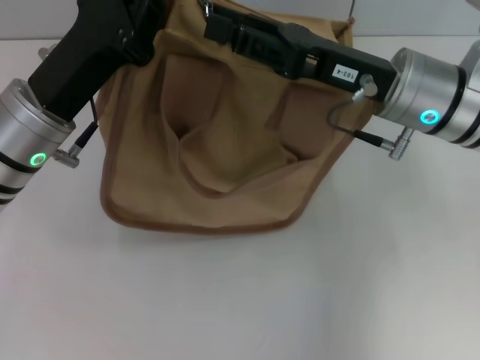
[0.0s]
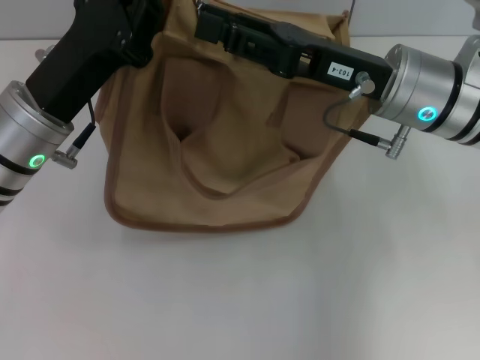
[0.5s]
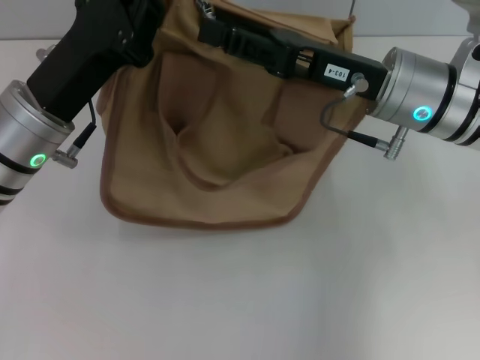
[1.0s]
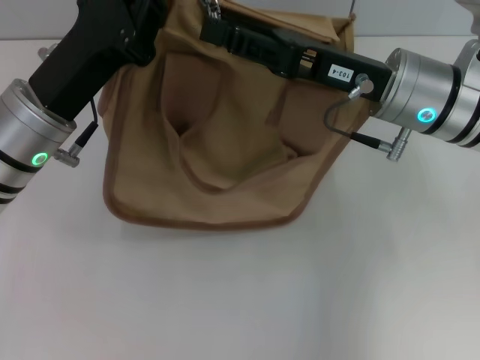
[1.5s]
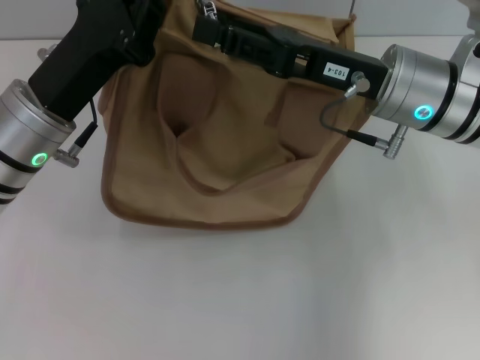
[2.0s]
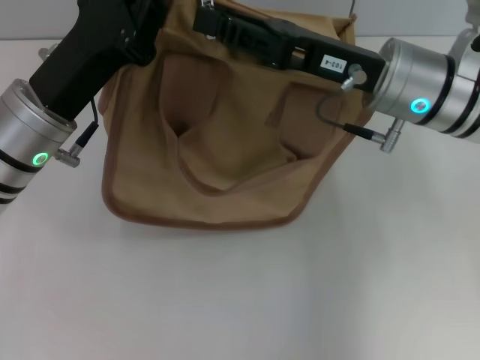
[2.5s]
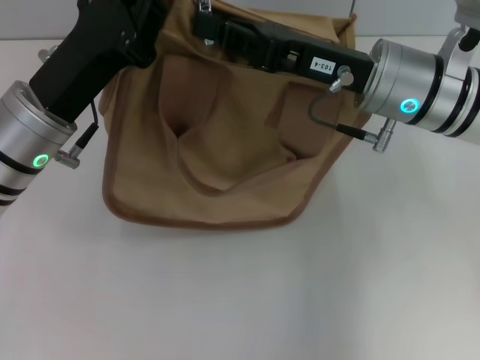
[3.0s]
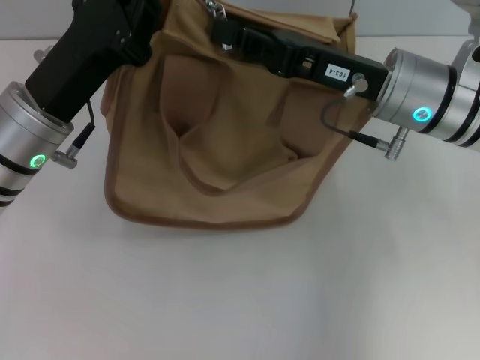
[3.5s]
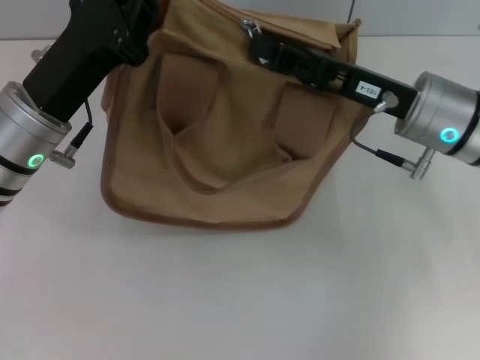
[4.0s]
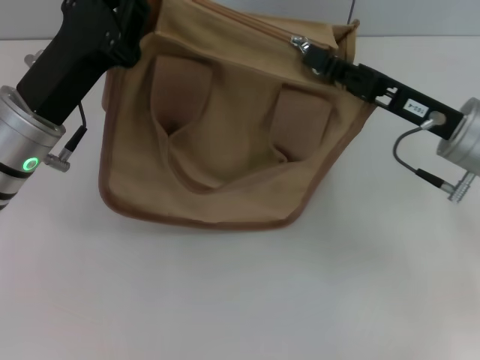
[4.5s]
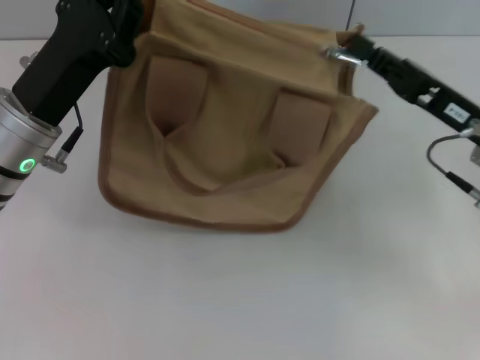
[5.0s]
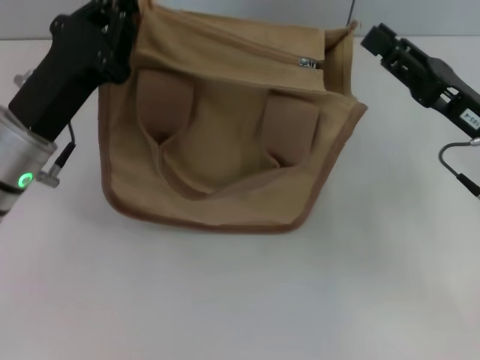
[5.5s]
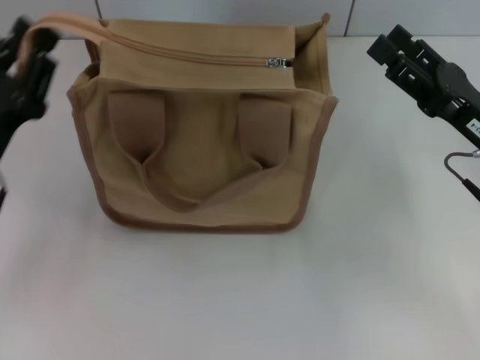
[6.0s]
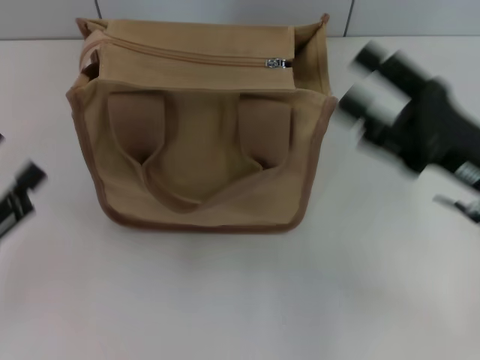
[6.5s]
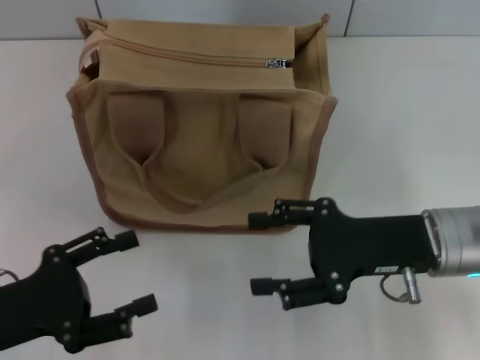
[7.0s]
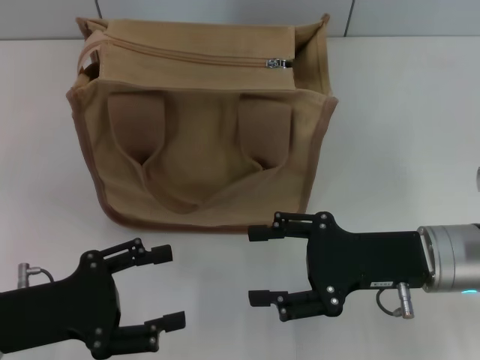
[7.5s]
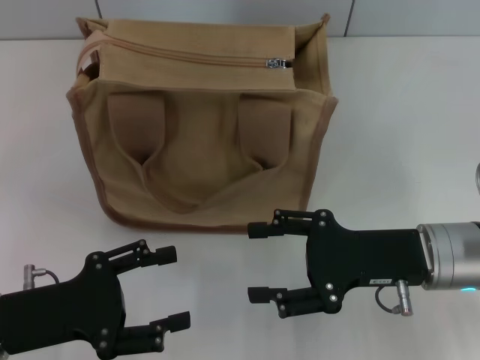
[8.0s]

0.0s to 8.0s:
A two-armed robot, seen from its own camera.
Step, 0.0s to 5.0s: Pull up the zipper with your right hand.
Step, 5.5s to 6.0s: Grab the zipper with your left hand.
0.0s to 2.0s: The two grippers keep their place.
2.0s to 4.0s: The right gripper closes up.
4.0s to 6.0s: The right gripper moves to the right and backward, approximately 10 cm, and opens up. Meanwhile the left gripper is displaced to the left, backward and downward by approximately 10 cm.
6.0s to 8.0s: The right gripper moves to the left, some 5 cm; the left gripper goes about 5 cm backward, and opens its fingers.

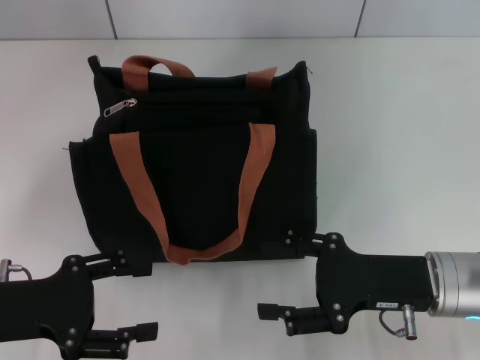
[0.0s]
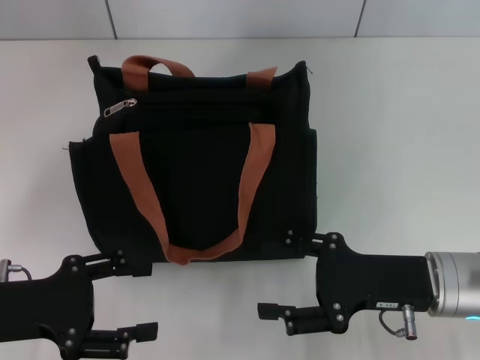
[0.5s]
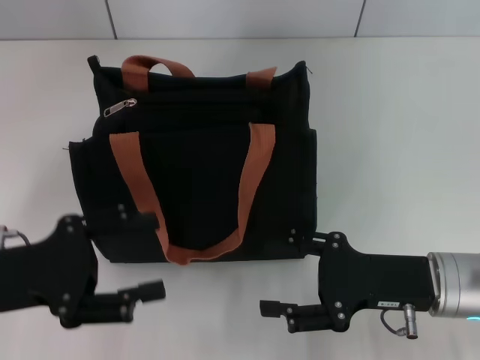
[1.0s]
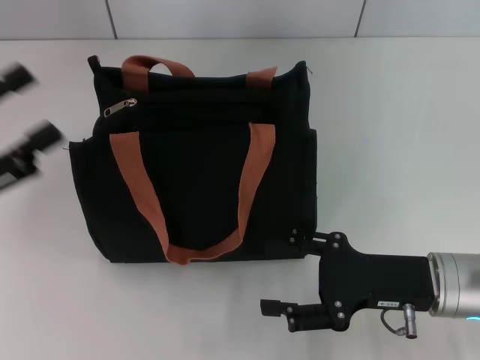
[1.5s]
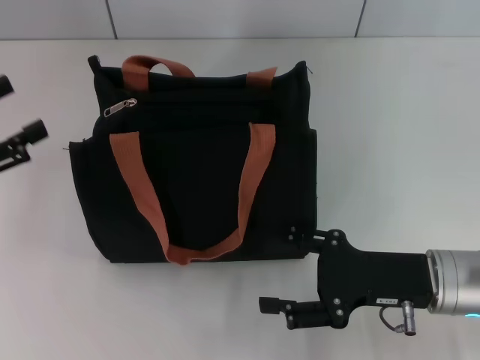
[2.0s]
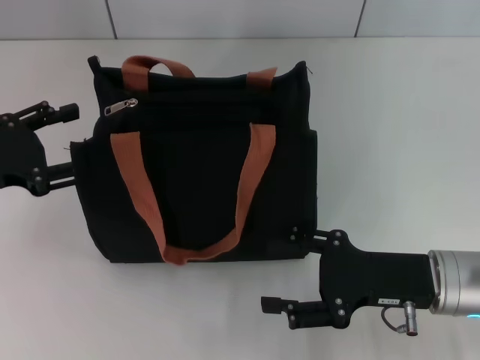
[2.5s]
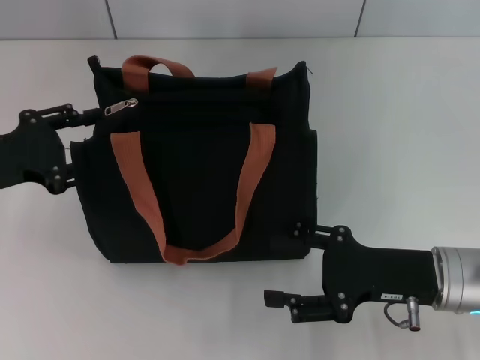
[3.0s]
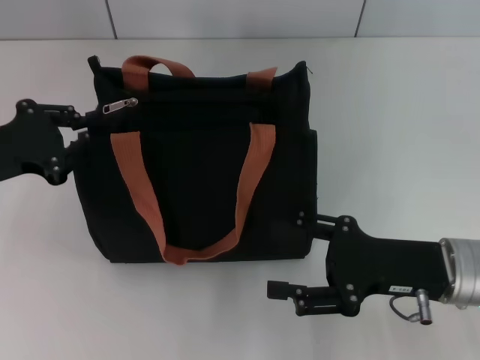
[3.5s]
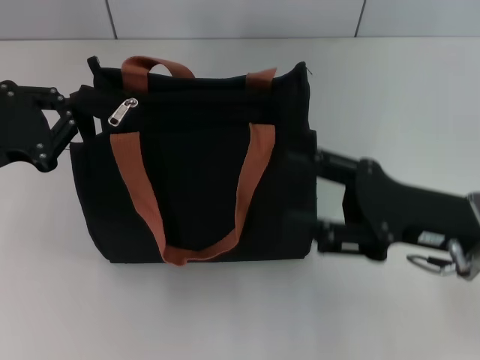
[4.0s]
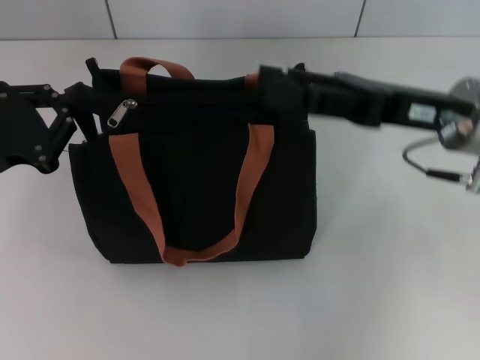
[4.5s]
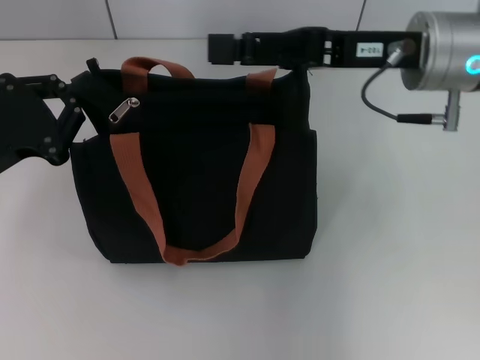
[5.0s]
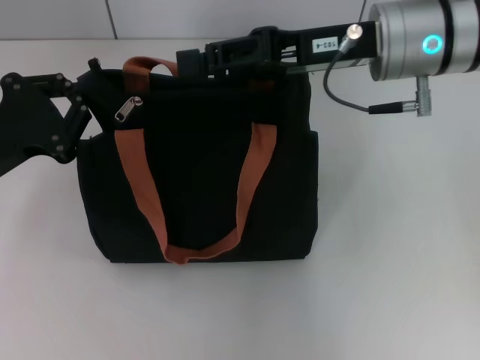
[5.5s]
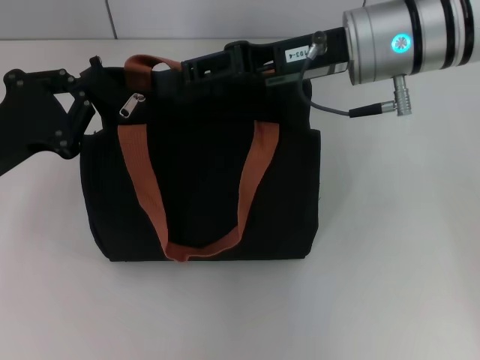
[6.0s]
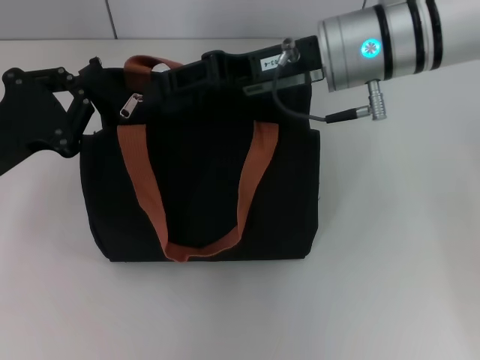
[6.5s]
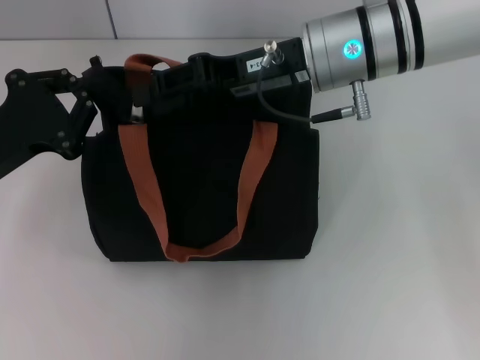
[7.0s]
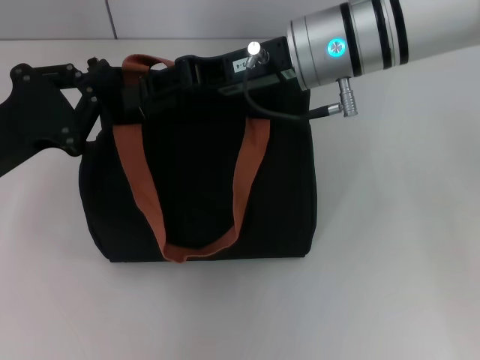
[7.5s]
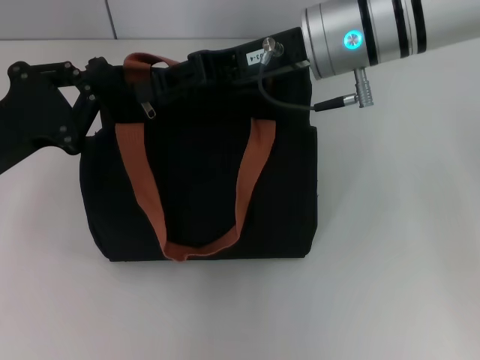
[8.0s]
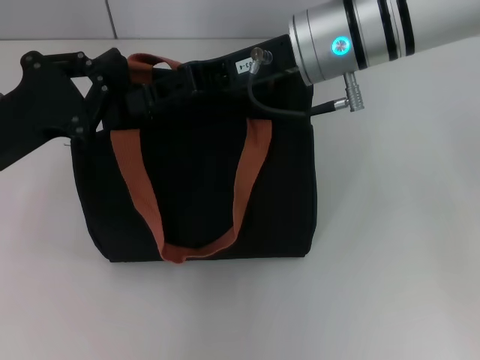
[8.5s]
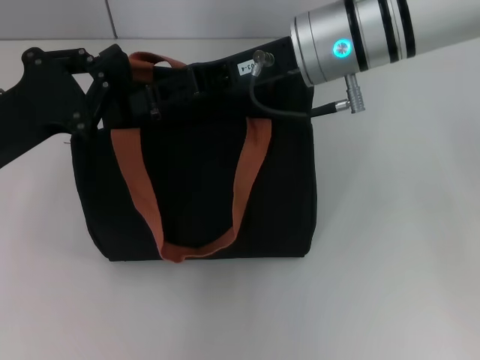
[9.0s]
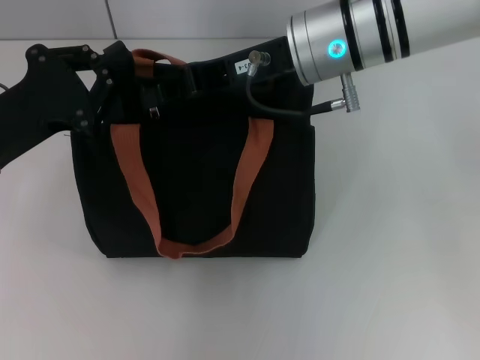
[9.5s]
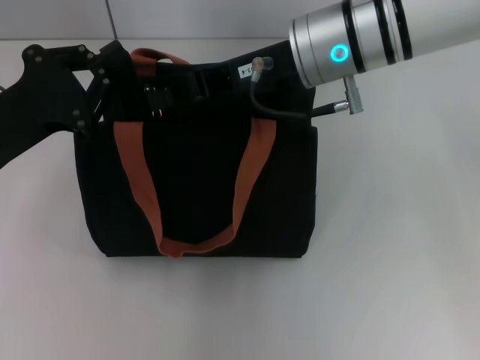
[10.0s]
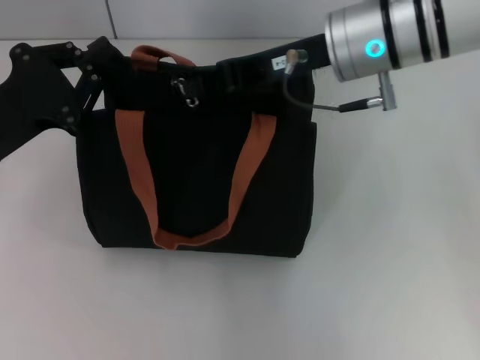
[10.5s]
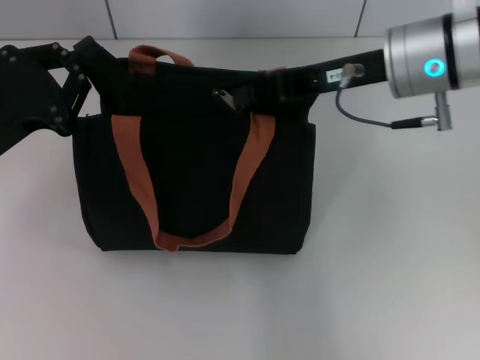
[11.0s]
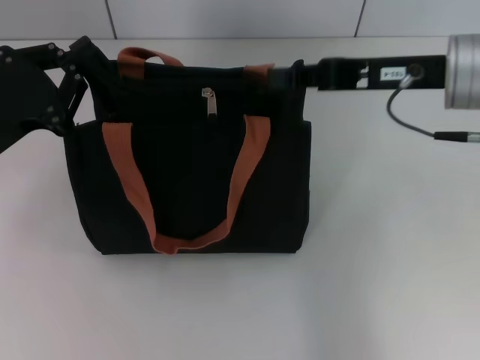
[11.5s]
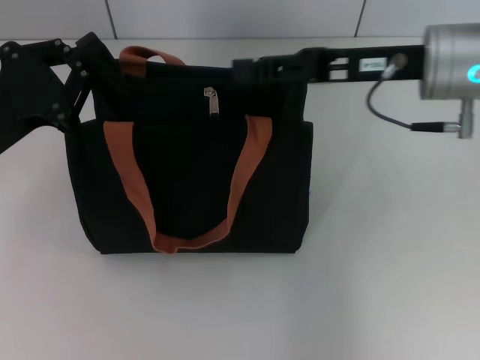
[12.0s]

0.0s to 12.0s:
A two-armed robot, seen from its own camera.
0.0s to 2.0s: The left gripper goes approximately 5 cm to the left.
2.0s to 4.0s: The left gripper changes place by roughly 5 cm, and closes. Meanwhile the right gripper is displaced upward by roughly 5 cm.
4.0s to 6.0s: The right gripper is displaced forward, upward and to the left by about 20 cm, and closes.
6.0s to 8.0s: The grippers make only small movements.
8.0s to 10.0s: The right gripper closes its fingers.
10.0s to 12.0s: The right gripper travels to the right by approximately 10 cm.

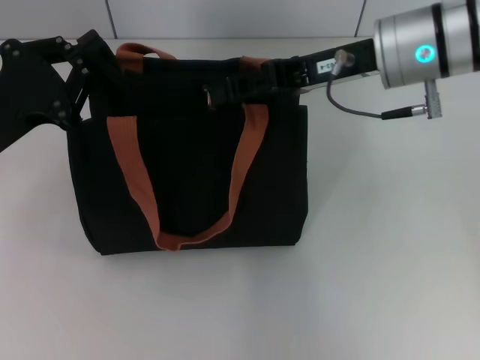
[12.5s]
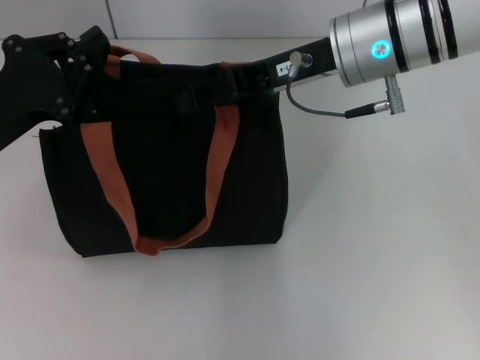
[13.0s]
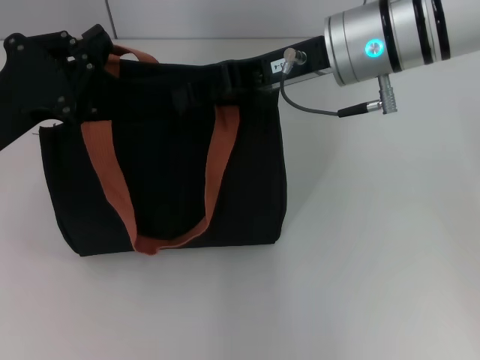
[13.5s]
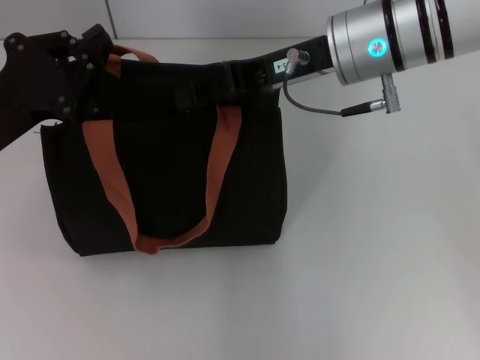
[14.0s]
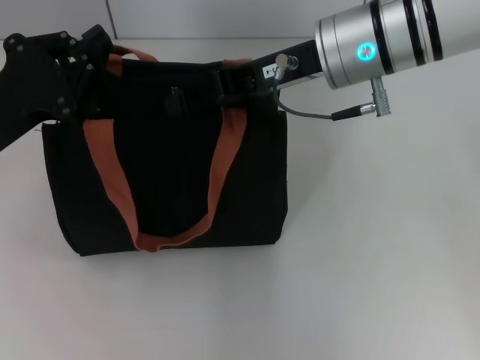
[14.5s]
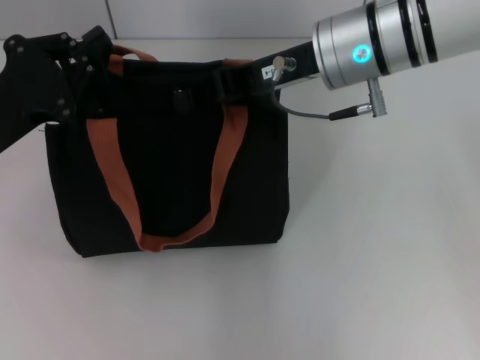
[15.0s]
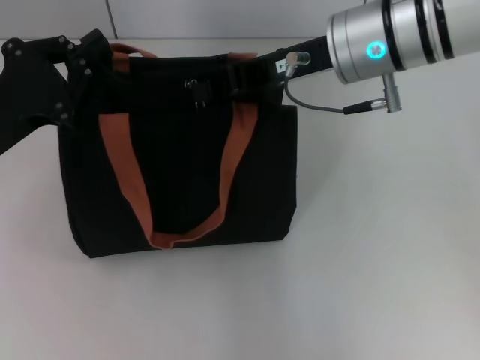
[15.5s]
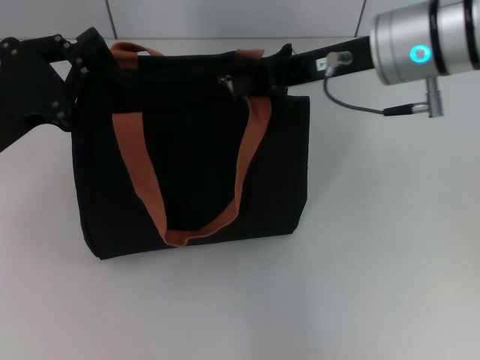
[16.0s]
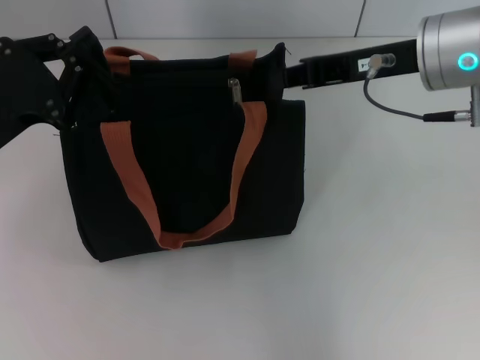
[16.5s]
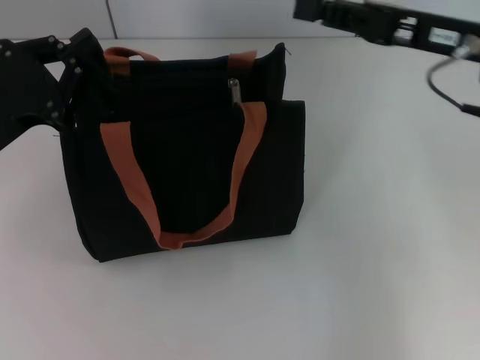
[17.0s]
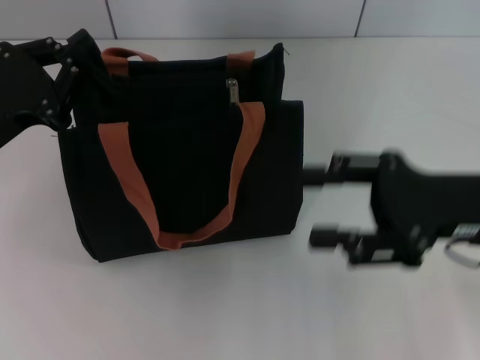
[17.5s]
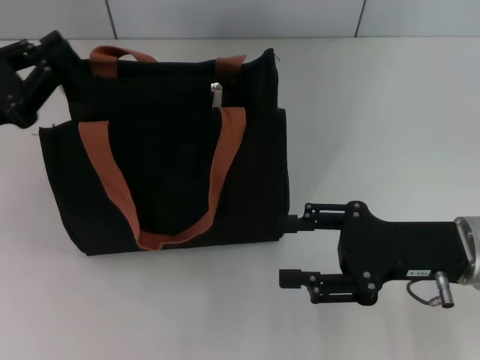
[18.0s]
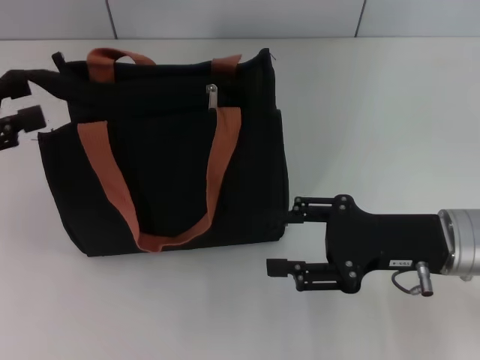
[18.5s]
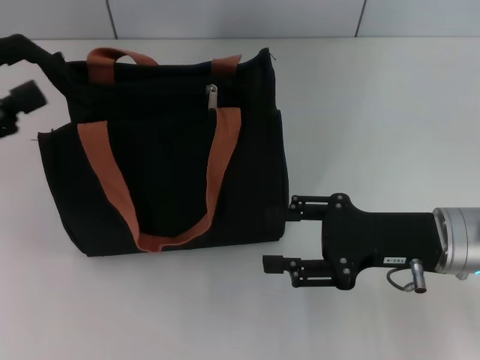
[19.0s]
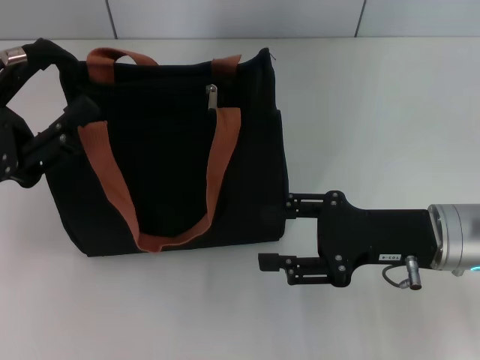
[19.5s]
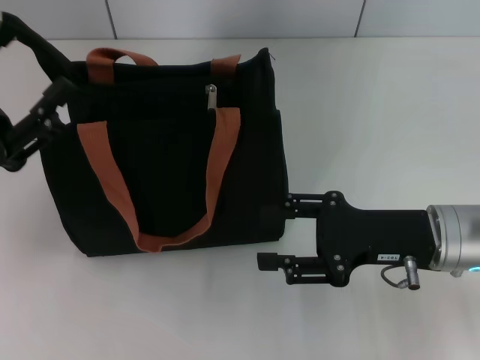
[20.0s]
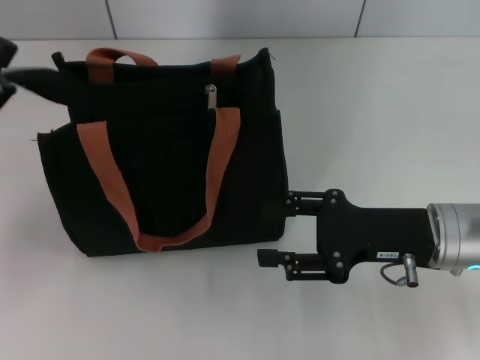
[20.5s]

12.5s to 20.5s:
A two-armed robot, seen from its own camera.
Step, 12.5s to 16.0s: Pull up the zipper with your right hand.
14.5s to 16.5s: The right gripper goes approximately 5 cm to the right, and closes.
16.5s to 18.5s: The left gripper goes approximately 10 cm to the left, and opens. The right gripper heads downward and backward, covering roughly 15 cm, and opens its fingers.
18.5s to 20.5s: The left gripper is displaced to the right and downward by some 10 cm, and opens.
